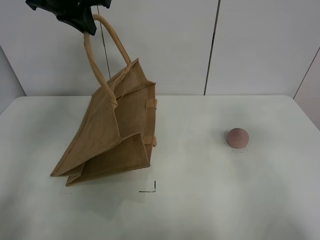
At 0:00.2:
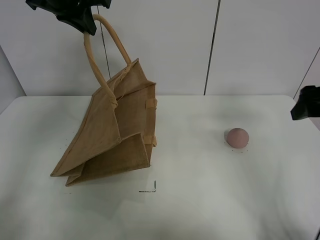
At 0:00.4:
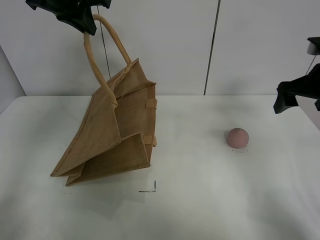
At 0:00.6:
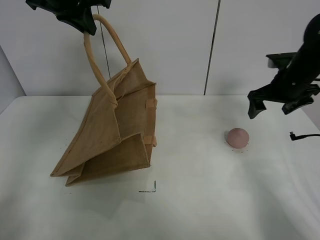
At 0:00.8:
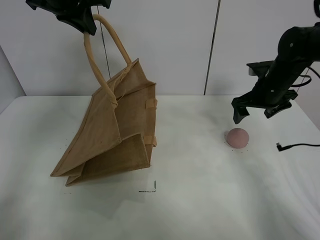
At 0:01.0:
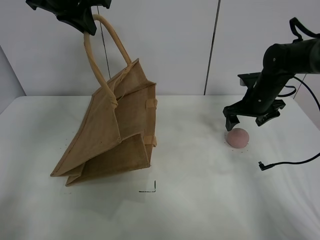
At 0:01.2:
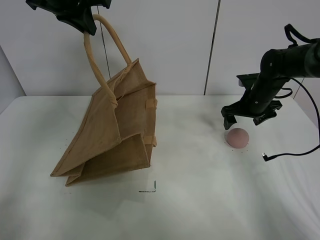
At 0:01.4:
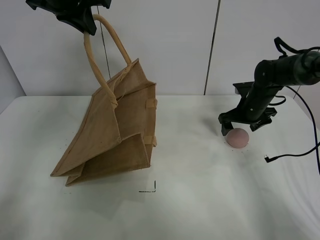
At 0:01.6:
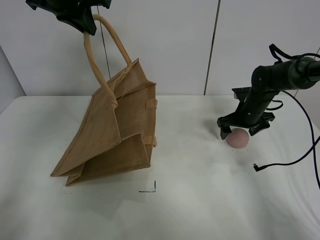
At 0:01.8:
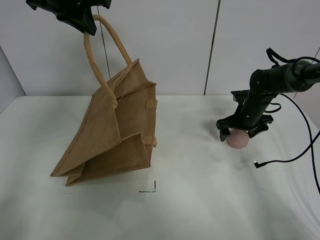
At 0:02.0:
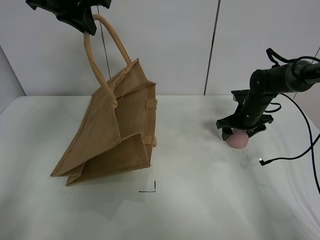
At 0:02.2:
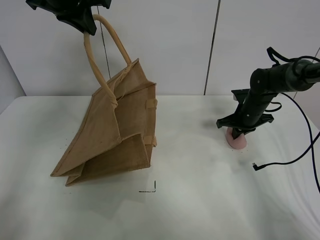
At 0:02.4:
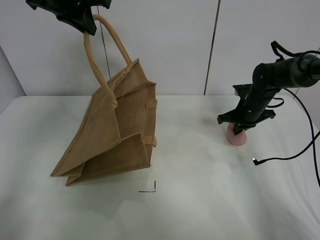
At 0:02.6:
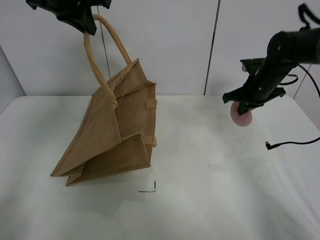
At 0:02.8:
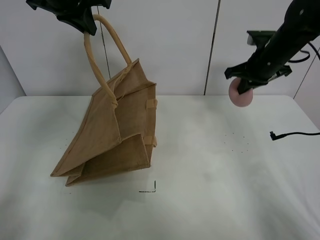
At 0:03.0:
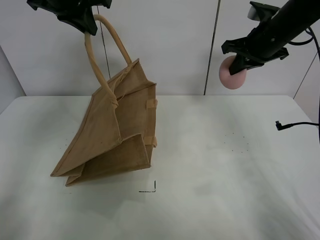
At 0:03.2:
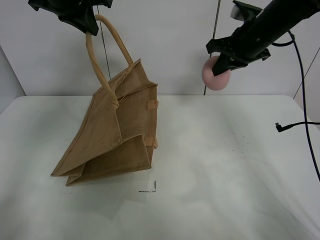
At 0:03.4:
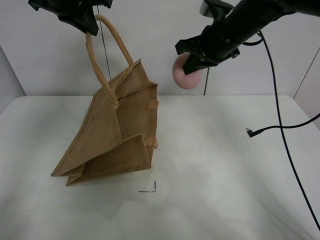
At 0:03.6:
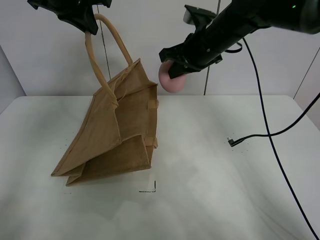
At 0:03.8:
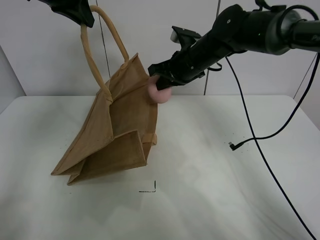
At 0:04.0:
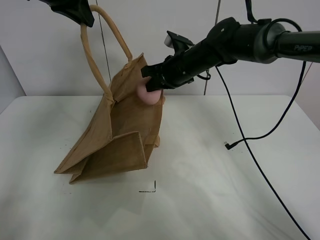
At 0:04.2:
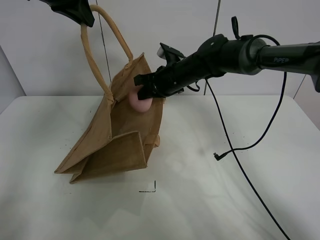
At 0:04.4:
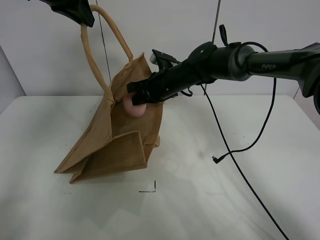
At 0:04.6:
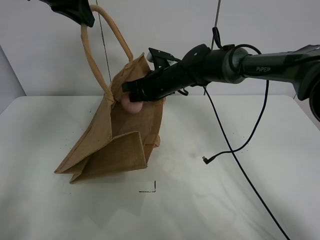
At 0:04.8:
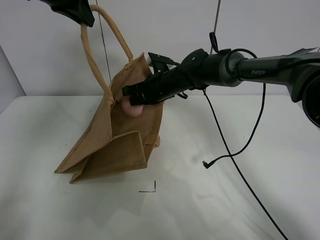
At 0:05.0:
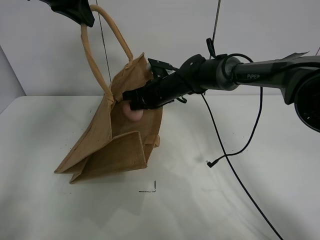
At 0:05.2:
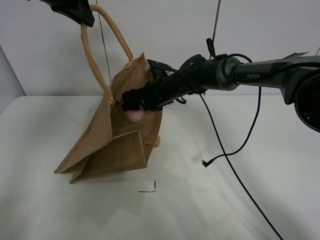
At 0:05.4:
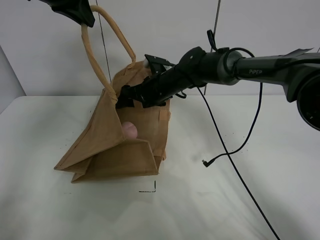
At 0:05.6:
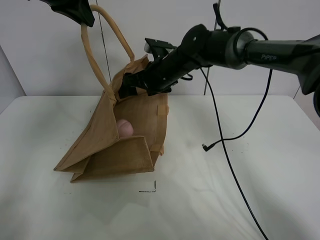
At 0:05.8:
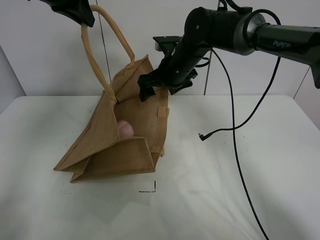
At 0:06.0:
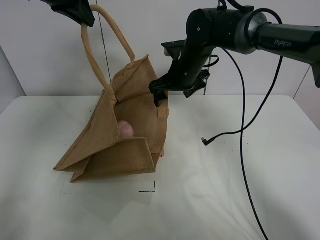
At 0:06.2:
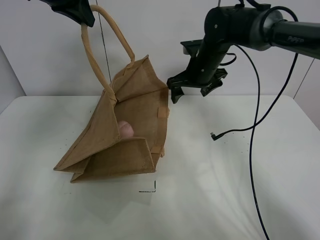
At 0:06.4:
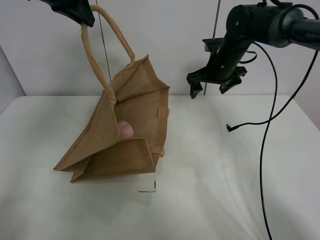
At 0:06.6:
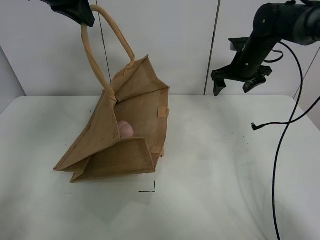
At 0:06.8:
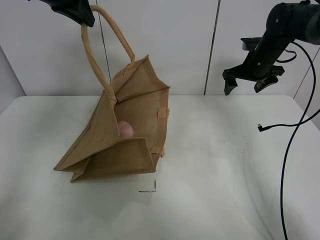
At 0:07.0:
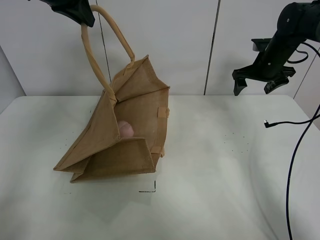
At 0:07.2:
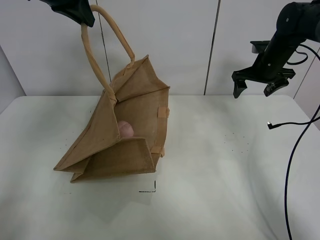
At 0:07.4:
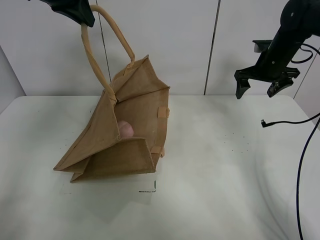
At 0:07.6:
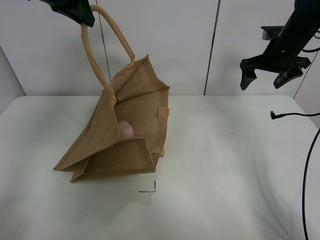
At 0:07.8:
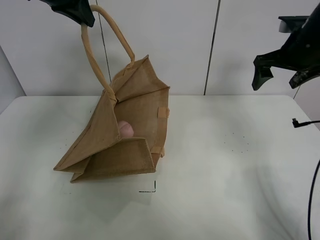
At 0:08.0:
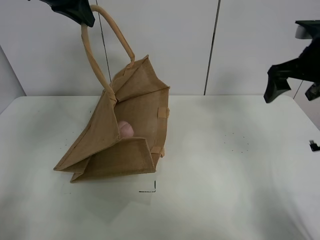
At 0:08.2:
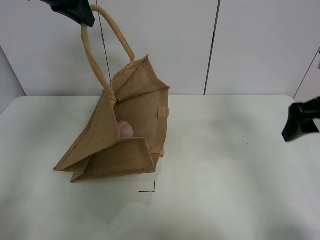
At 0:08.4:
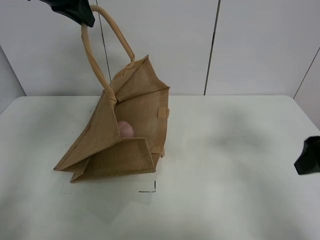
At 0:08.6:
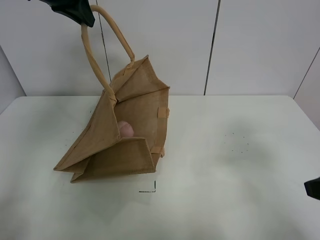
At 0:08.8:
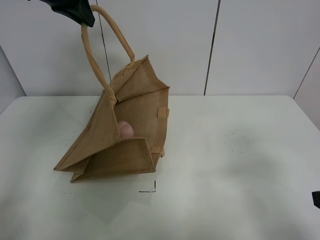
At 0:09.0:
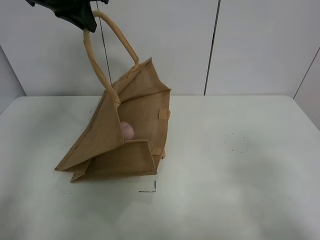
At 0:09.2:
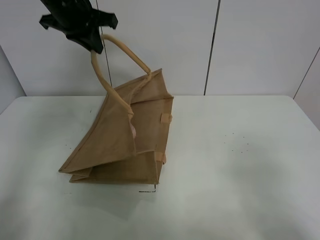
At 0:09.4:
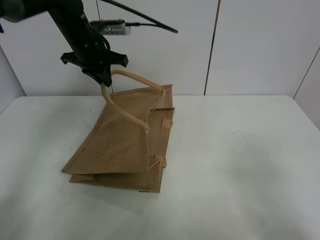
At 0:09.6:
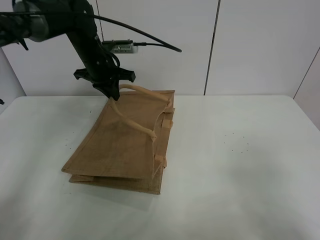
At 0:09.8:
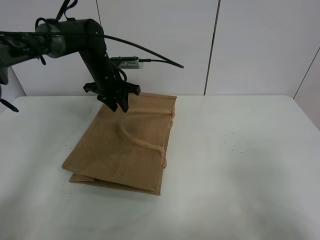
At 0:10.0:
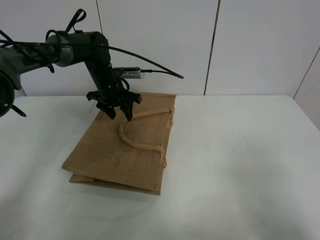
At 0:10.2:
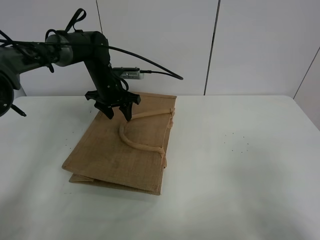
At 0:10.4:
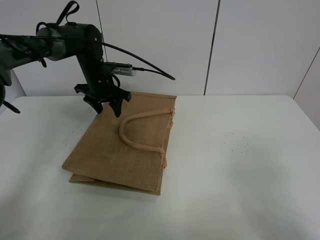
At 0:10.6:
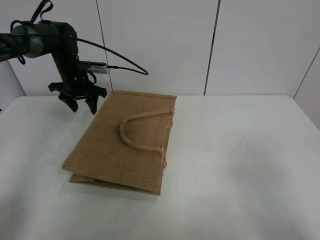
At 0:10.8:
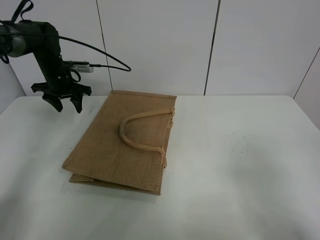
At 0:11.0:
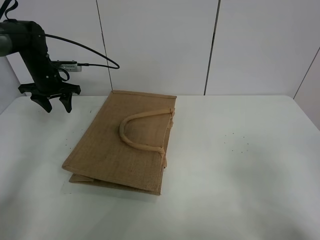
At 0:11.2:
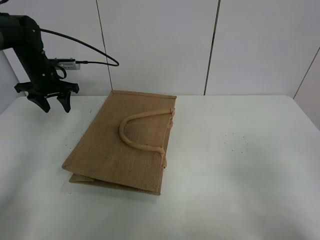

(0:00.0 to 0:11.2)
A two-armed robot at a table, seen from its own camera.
Task of the whole recording: open the brown linen bag and put the peach in the bag.
Step, 0:00.0 - 0:02.0: Grasp the peach with right gripper.
Step, 0:02.2 - 0:06.2: Place the peach in the handbag with right gripper.
Step, 0:06.4 - 0:10.6: Put down the handbag with left grippe.
0:00.0 - 0:01.6: The right gripper moves forward and downward, roughly 35 cm.
0:01.6 - 0:03.2: The right gripper is displaced upward by some 20 cm, and closes its fingers.
0:03.2 - 0:04.8: The right gripper is displaced to the left and downward by roughly 20 cm.
0:04.8 - 0:06.4: The right gripper is displaced to the right by some 15 cm, and opens its fingers.
0:06.4 - 0:08.0: The right gripper heads backward, to the right and upward, covering approximately 20 cm.
0:08.0 - 0:09.6: The right gripper goes about 30 cm backward. The left gripper goes some 20 cm downward.
0:09.6 - 0:11.2: The left gripper moves to the left, about 15 cm, and opens its fingers.

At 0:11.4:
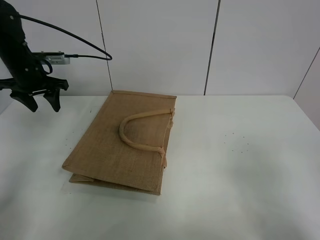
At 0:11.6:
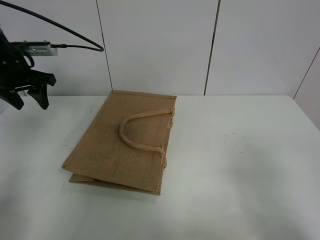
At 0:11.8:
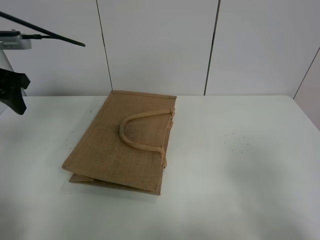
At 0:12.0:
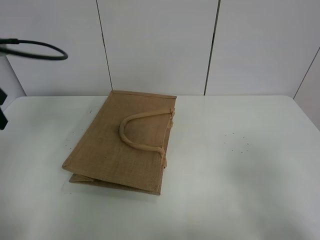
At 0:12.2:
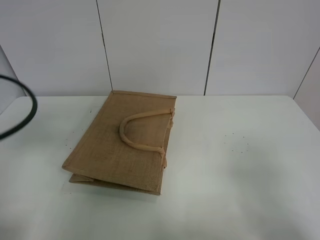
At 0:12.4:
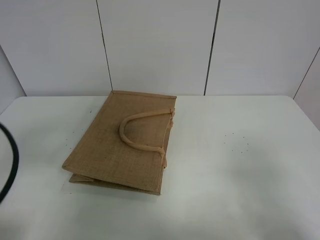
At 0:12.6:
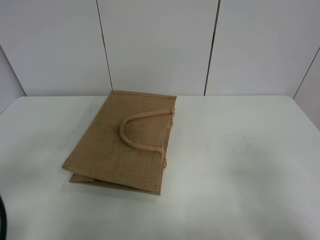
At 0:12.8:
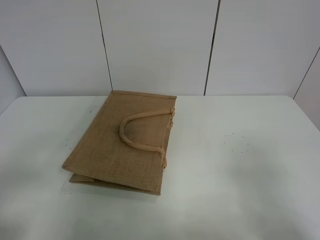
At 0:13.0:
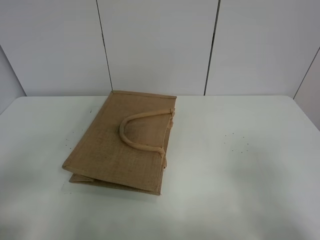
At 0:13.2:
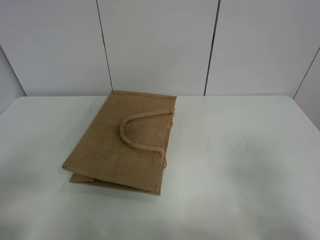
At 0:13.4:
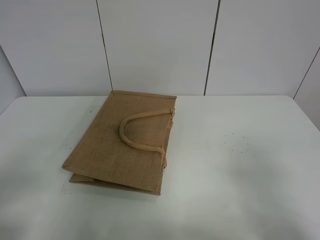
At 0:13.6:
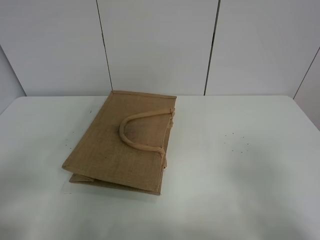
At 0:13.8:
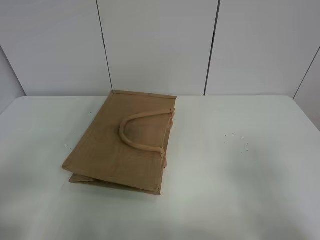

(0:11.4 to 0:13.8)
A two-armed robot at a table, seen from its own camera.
Task of the whole recording: open the brown linen bag and put the peach in the bag.
0:11.4 - 0:12.6: The left gripper travels backward by roughly 35 cm.
